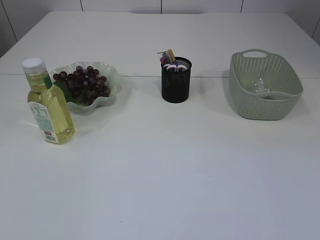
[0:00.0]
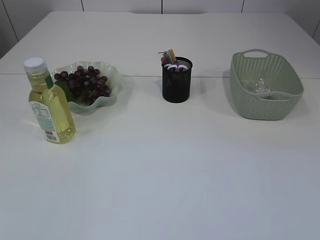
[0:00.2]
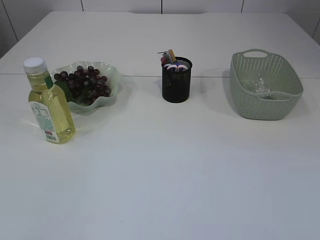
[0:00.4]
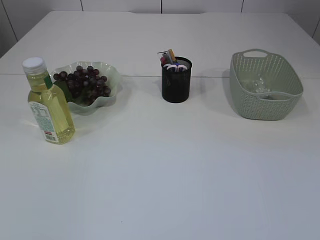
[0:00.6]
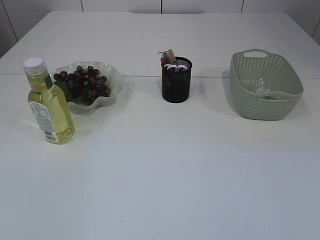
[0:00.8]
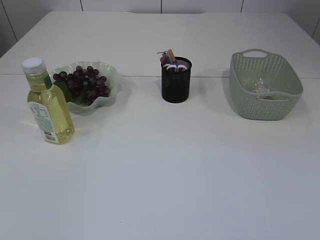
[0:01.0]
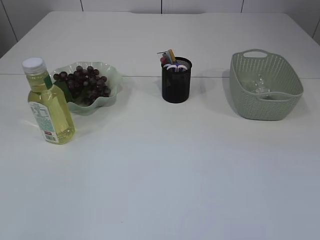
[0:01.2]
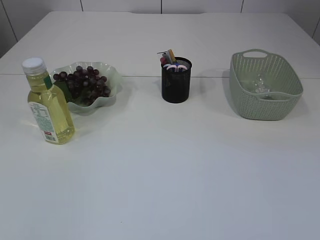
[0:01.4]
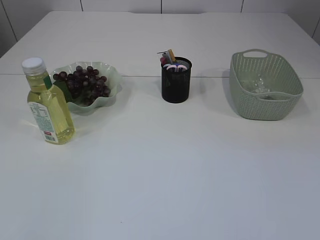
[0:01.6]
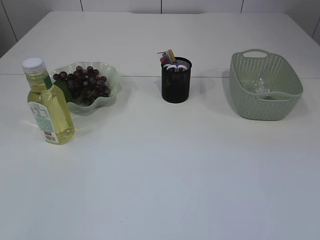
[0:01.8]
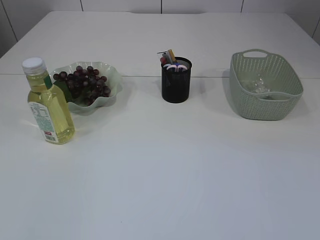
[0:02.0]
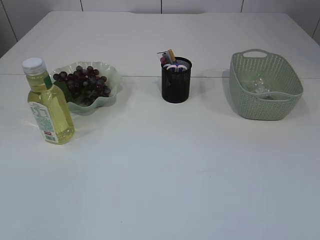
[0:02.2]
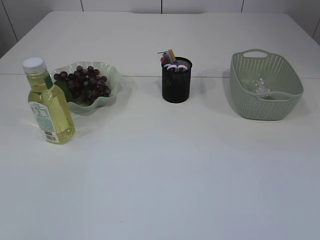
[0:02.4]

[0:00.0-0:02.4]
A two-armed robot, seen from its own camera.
0:01.2 to 0:02.4: Neither gripper changes place.

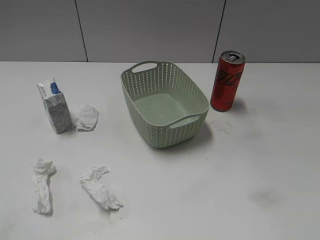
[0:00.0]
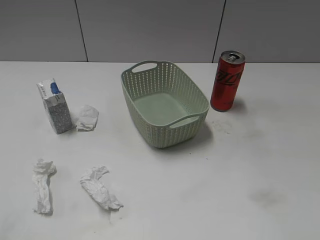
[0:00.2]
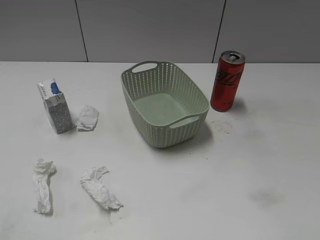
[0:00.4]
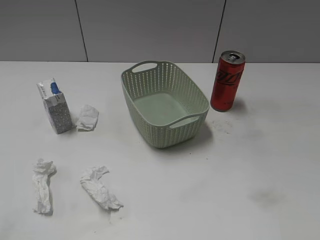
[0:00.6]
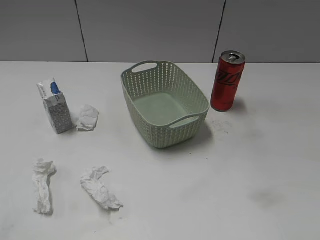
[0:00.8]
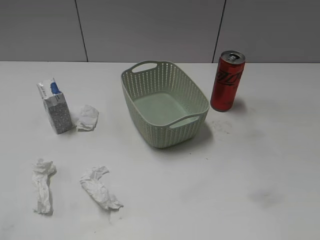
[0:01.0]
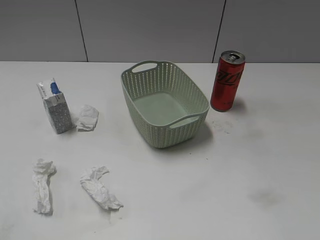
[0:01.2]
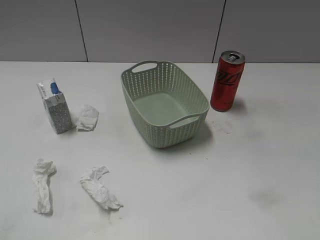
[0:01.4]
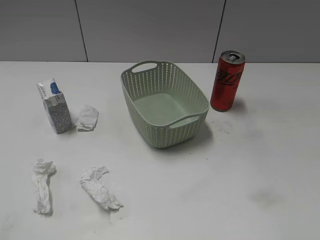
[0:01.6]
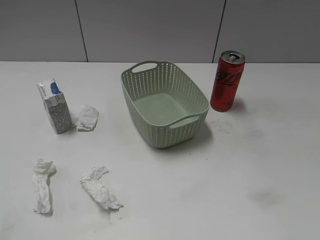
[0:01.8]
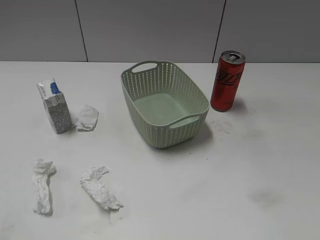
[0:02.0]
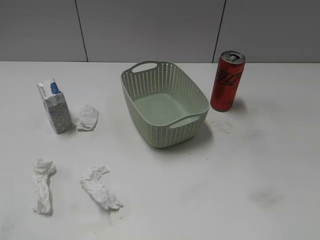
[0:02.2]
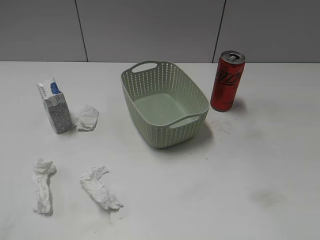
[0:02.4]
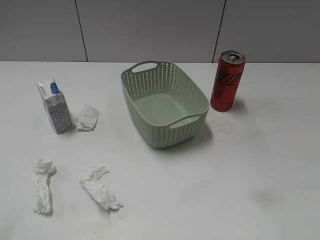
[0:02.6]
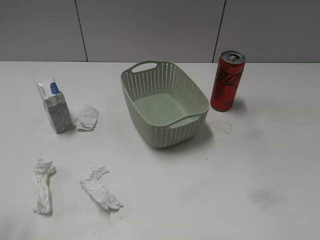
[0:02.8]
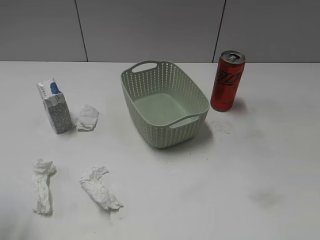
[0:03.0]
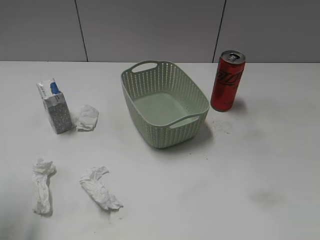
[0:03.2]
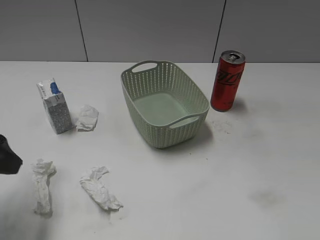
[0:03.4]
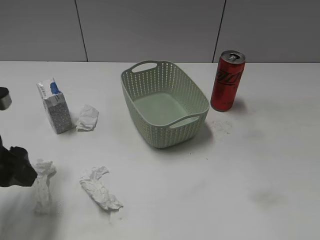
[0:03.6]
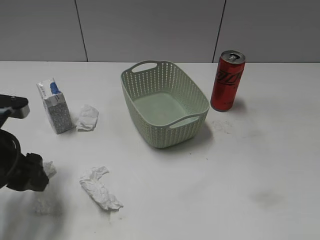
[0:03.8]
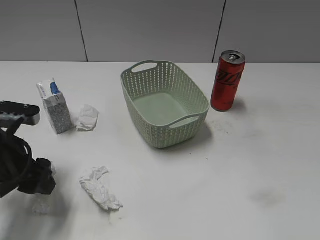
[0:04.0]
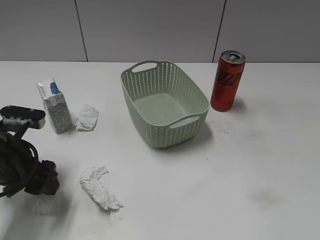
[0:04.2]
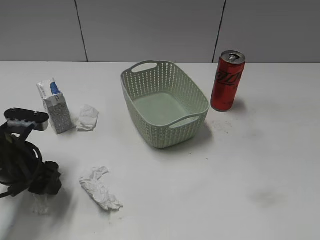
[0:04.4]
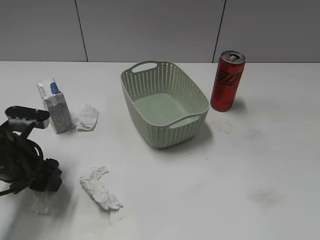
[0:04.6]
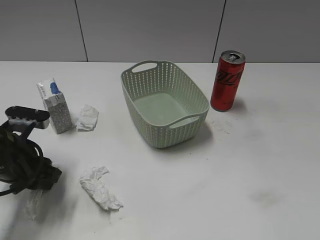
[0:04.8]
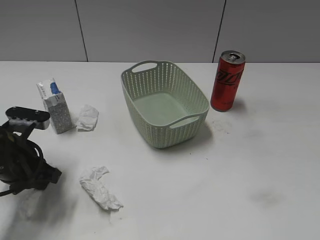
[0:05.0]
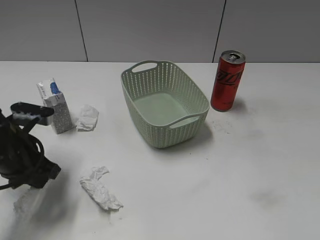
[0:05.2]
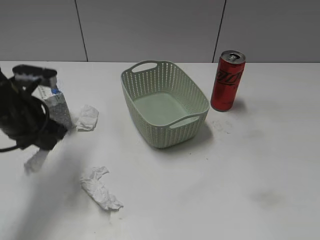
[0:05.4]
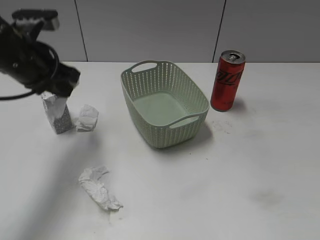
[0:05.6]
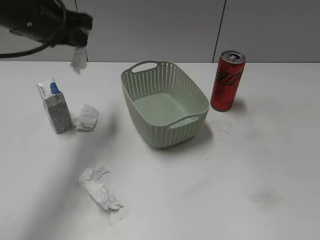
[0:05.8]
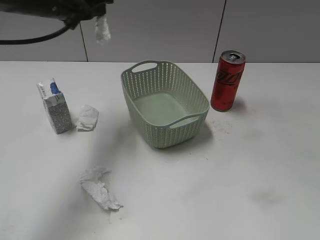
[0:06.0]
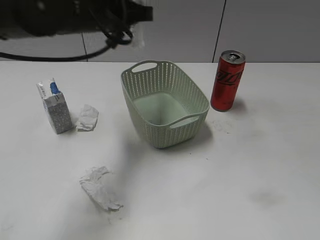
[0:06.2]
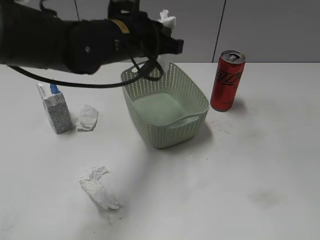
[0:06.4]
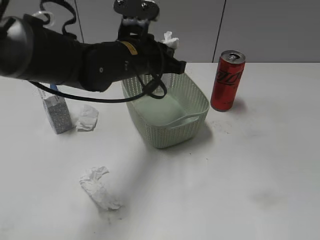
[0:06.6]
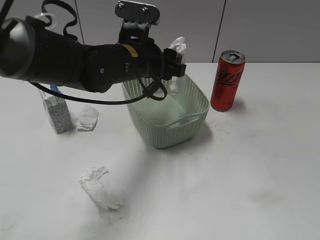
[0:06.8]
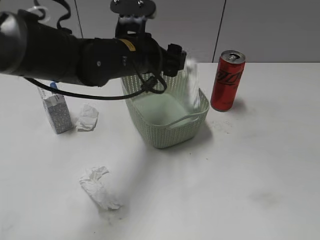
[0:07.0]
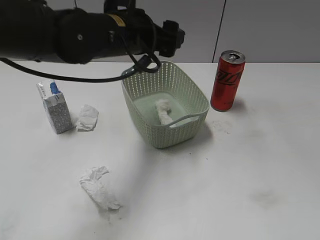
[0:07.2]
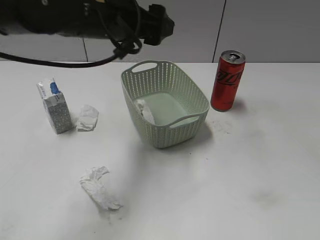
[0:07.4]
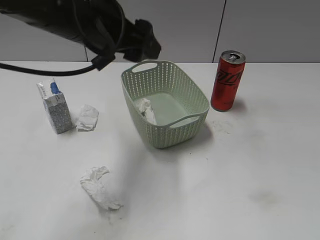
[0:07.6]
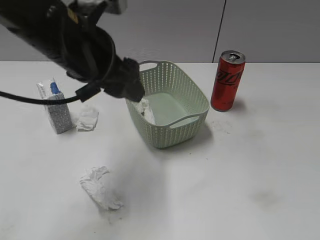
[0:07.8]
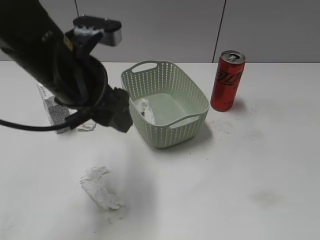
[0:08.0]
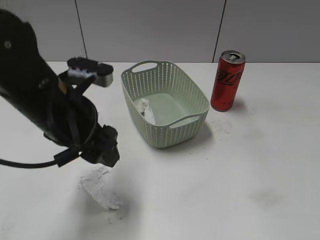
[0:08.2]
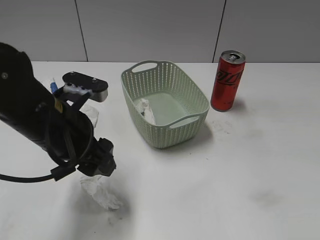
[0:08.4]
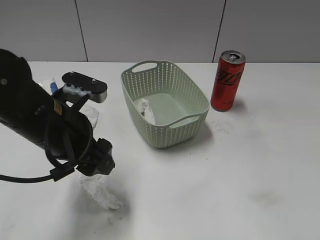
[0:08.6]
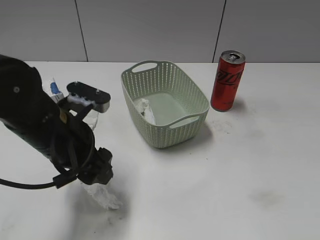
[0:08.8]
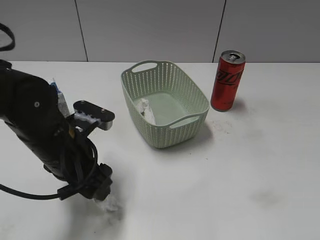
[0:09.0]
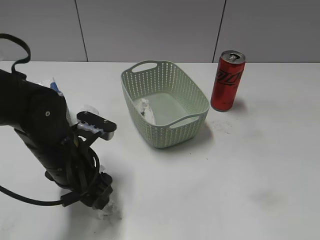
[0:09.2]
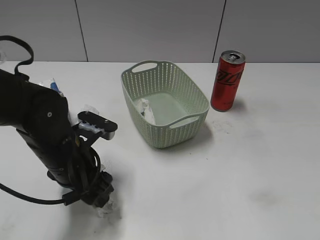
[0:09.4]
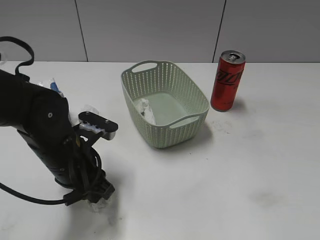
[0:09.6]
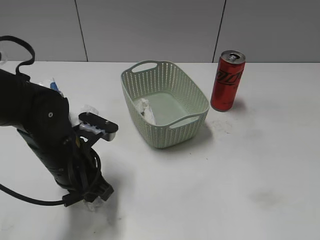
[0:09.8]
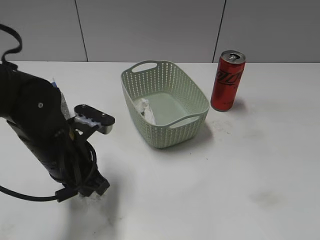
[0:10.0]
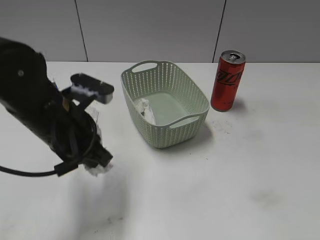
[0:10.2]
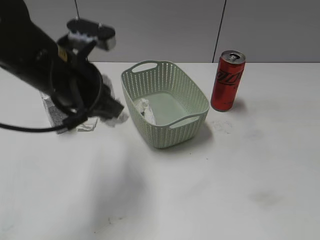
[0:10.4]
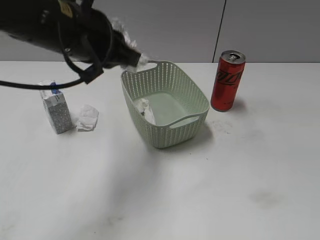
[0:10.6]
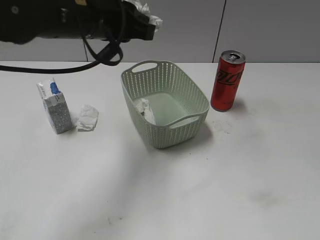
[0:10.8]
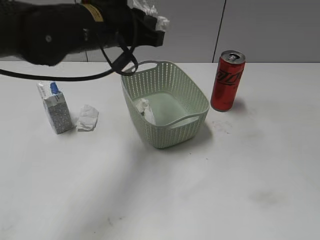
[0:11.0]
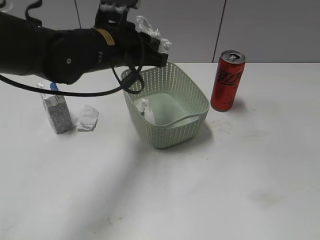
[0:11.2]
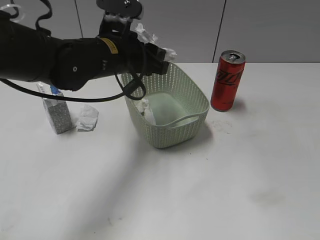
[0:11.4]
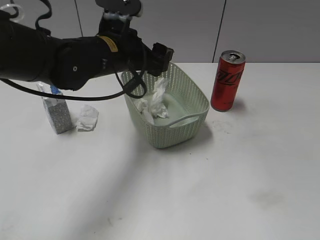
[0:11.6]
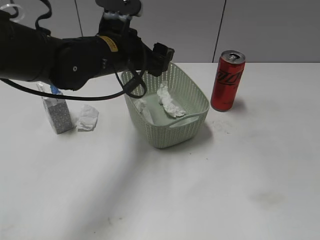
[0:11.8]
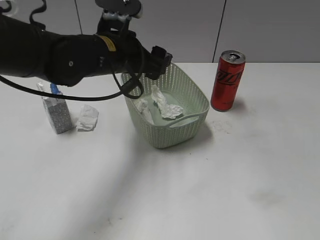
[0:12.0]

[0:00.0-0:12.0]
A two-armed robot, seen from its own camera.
Step, 0:03.2 to 0:05.0: Grasp the waste paper with left gripper.
Step, 0:05.2 to 0:07.2: Place the waste paper in the basket with left gripper.
Step, 0:07.4 to 0:09.6: Grasp the waste paper with left gripper.
Step, 0:09.8 to 0:11.6: Place the waste paper in the basket with left gripper.
0:03.0 to 0:04.4: The left gripper is displaced downward, forward and to the right by some 20 cm.
0:04.4 to 0:06.0: The left gripper travels upward, forward and to the right by roughly 25 cm, and closes up.
0:06.0 to 0:07.6: The left gripper shifts roughly 10 cm to the right and backward, and opens its fingers.
0:07.6 to 0:09.0: The left gripper moves downward and backward, roughly 15 cm.
0:09.0 to 0:10.4: The left gripper shifts about 10 cm upward, and closes up.
0:10.4 to 0:12.0: The left gripper moves forward, approximately 10 cm, and opens up.

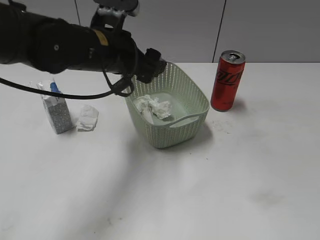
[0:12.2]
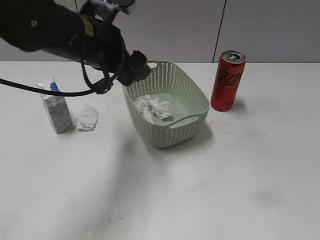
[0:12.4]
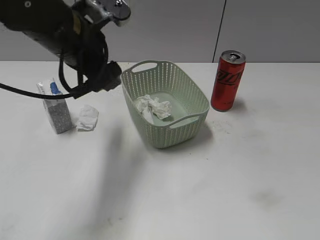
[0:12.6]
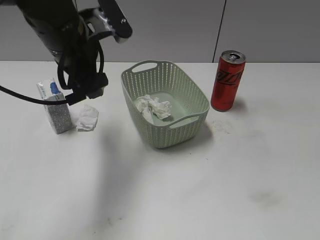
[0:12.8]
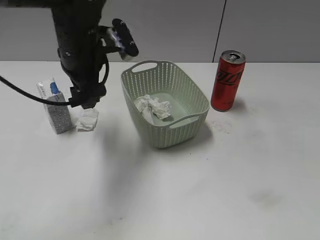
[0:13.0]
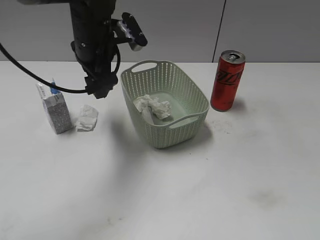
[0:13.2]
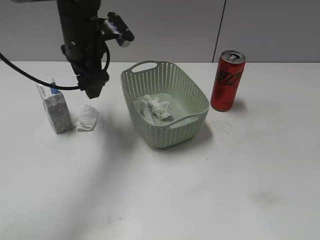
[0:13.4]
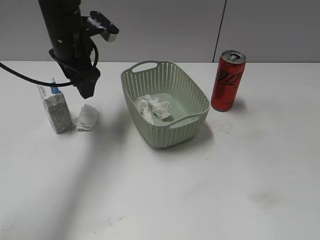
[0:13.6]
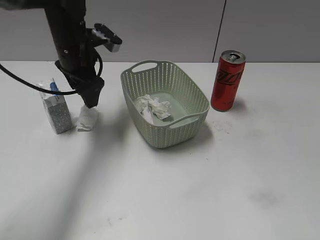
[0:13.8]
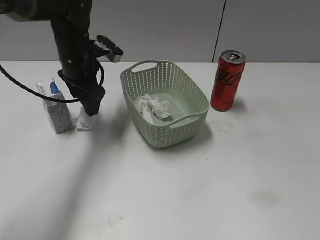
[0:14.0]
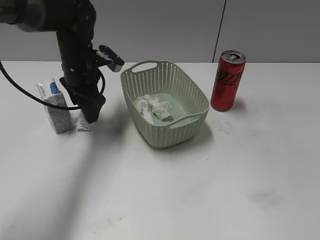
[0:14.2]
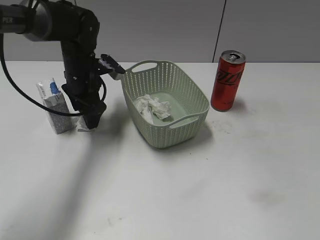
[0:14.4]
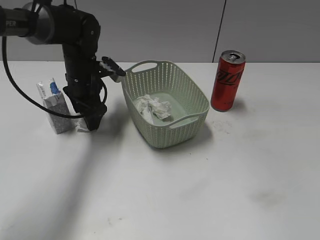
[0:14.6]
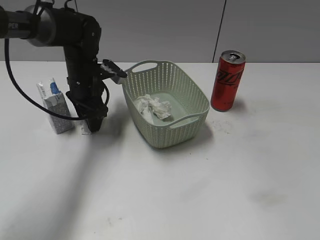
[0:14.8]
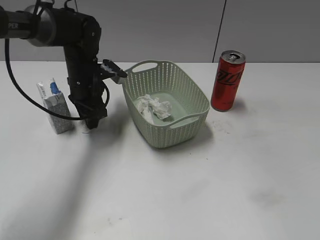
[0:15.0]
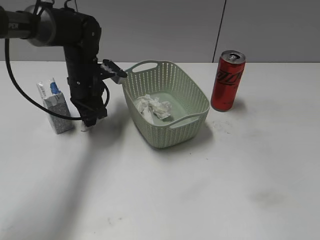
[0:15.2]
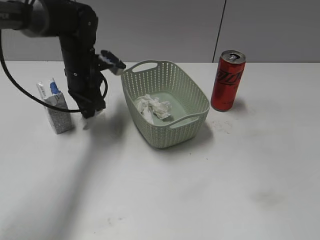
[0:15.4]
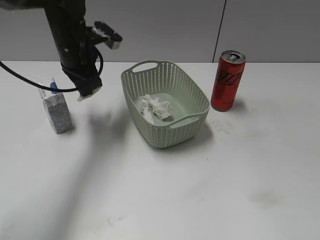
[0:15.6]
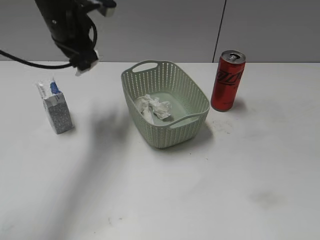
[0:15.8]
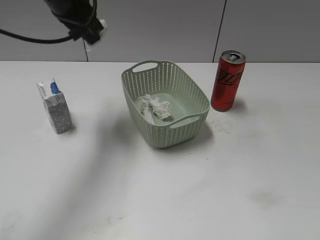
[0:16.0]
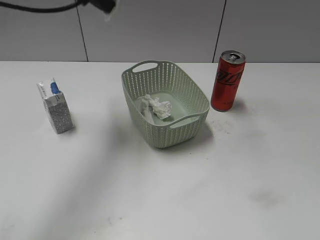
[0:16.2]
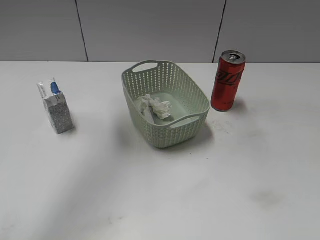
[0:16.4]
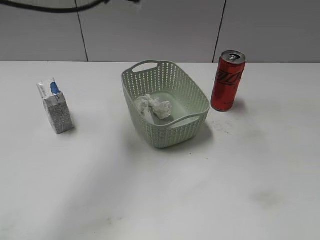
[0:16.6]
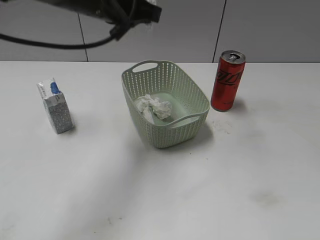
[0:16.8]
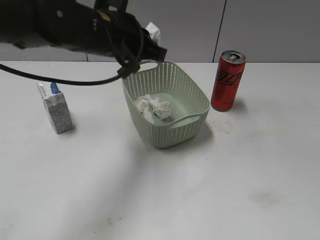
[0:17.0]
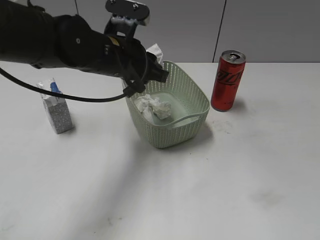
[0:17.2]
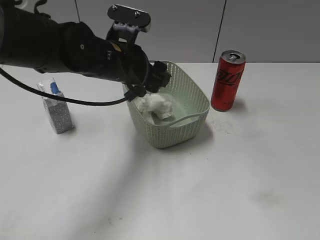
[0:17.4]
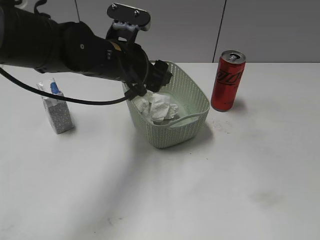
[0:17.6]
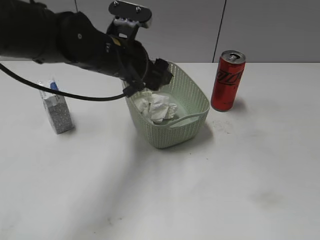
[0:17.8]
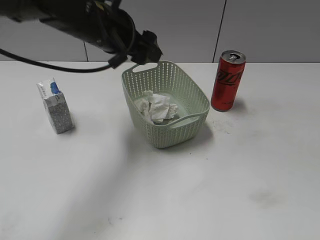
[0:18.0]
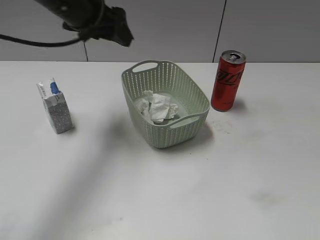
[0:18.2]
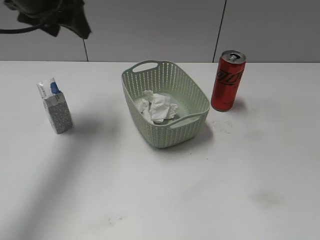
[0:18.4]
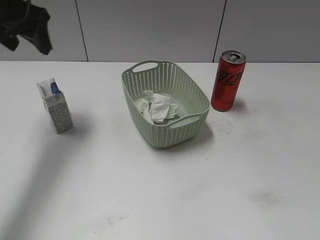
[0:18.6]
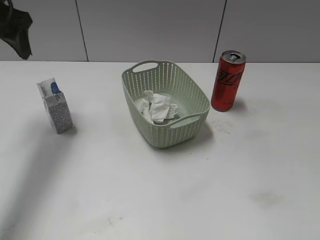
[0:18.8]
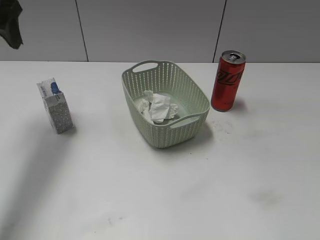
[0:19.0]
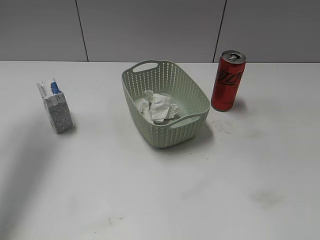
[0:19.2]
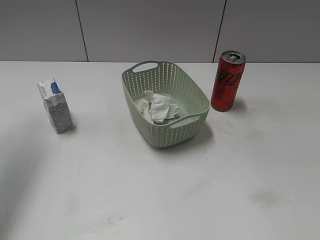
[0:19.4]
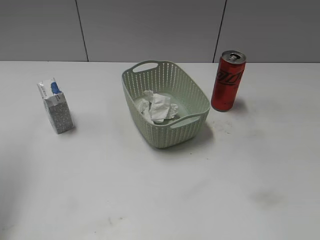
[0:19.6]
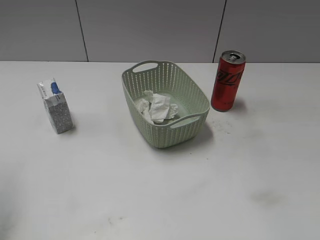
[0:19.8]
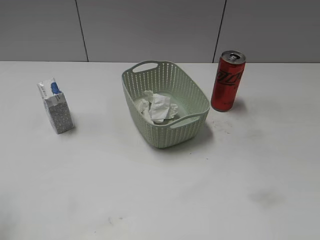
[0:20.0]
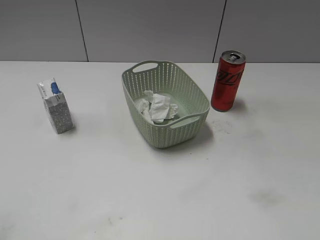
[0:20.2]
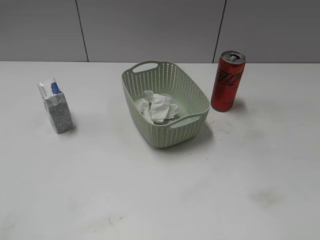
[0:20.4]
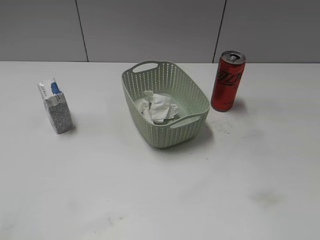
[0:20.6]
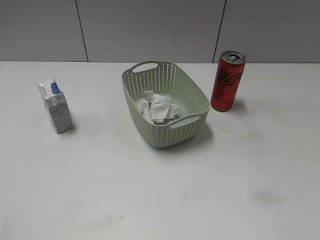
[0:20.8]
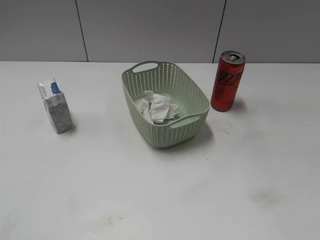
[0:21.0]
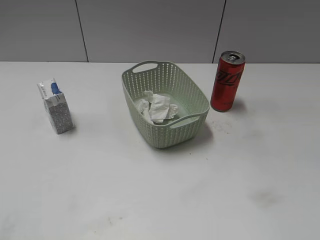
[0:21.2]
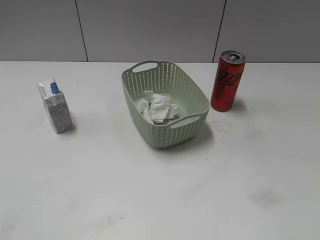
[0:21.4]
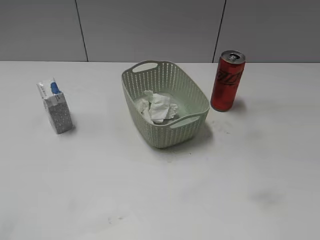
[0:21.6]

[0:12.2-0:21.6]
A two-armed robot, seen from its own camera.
Step, 0:12.2 to 0:15.4: Grasp the waste paper with left gripper.
Step, 0:15.6 to 0:17.8: Place the waste paper in the basket with left gripper.
0:12.2 to 0:13.8: The left gripper heads forward and to the left, covering about 10 cm.
0:13.8 to 0:15.4: The left gripper shifts about 5 cm downward, and closes up.
0:15.4 to 0:17.0: The left gripper travels upward, backward and to the right by some 15 cm.
0:17.0 to 0:18.4: The left gripper moves to the left, upward and forward, about 15 cm, and opens.
0:18.4 to 0:20.0: The left gripper goes some 25 cm backward and to the left.
